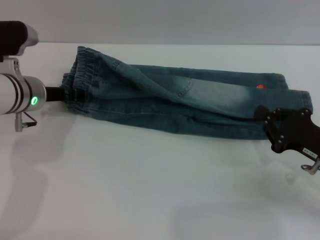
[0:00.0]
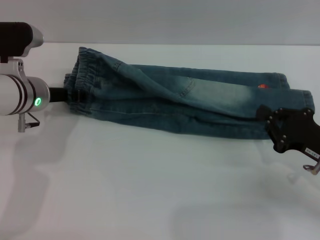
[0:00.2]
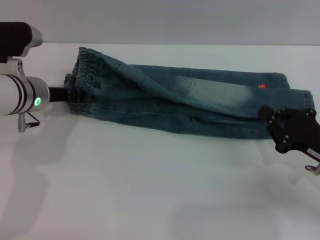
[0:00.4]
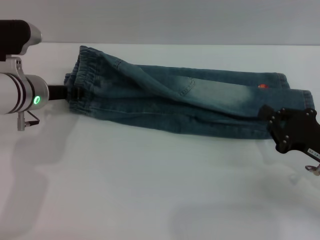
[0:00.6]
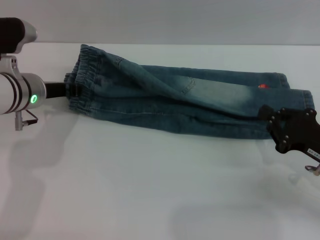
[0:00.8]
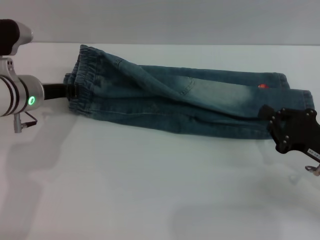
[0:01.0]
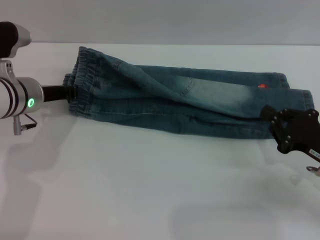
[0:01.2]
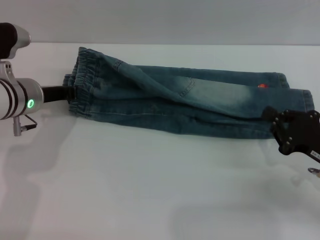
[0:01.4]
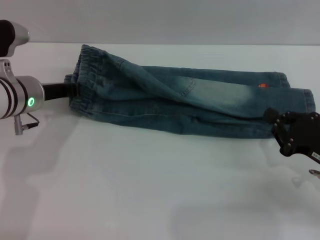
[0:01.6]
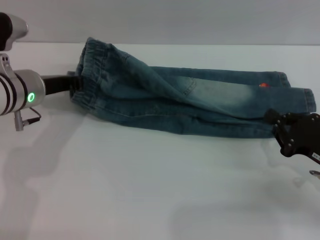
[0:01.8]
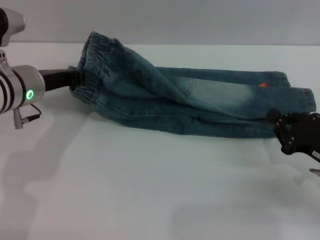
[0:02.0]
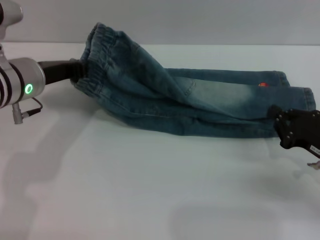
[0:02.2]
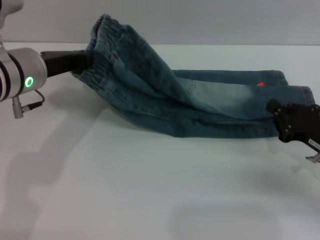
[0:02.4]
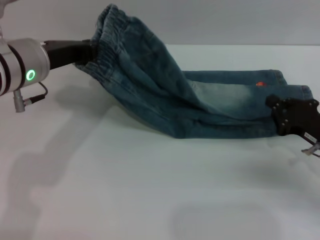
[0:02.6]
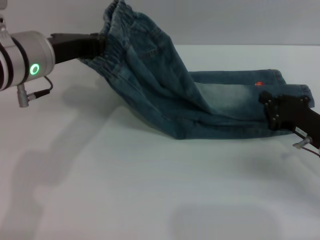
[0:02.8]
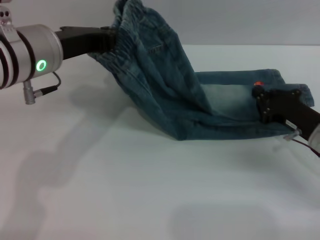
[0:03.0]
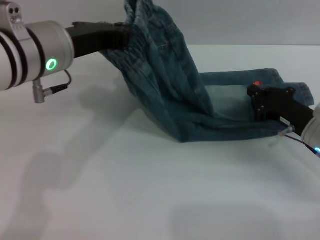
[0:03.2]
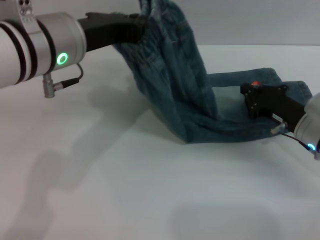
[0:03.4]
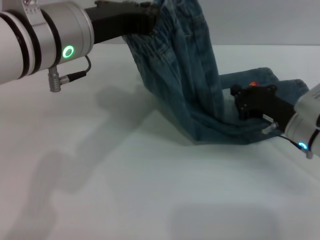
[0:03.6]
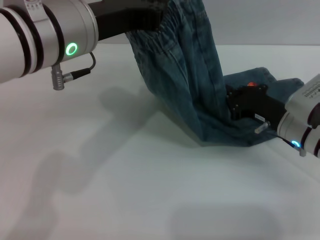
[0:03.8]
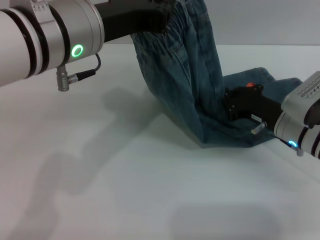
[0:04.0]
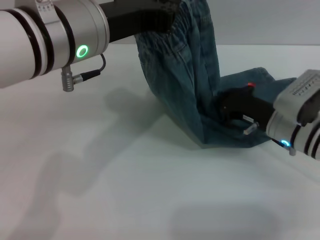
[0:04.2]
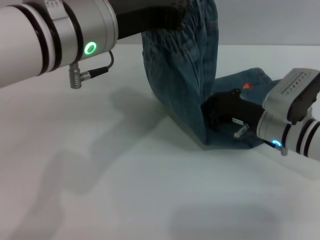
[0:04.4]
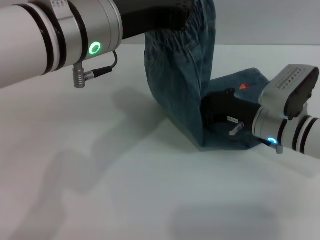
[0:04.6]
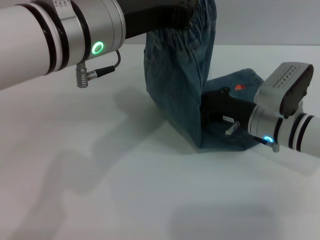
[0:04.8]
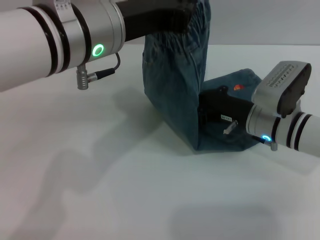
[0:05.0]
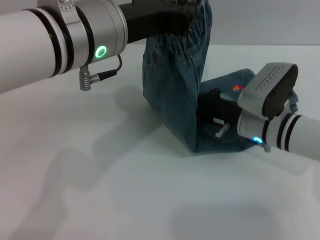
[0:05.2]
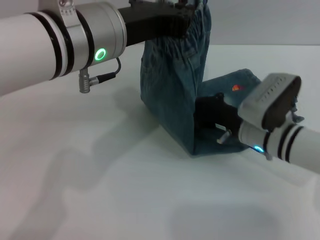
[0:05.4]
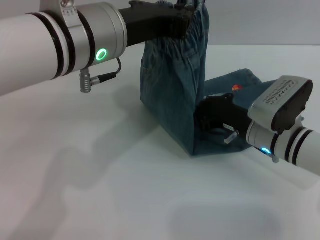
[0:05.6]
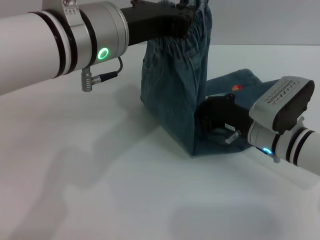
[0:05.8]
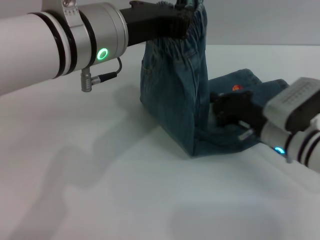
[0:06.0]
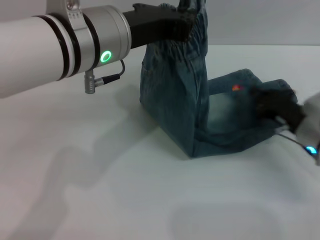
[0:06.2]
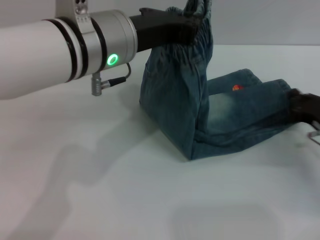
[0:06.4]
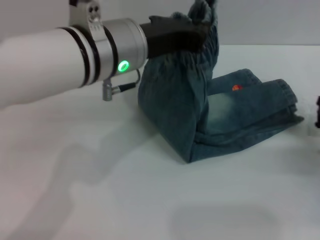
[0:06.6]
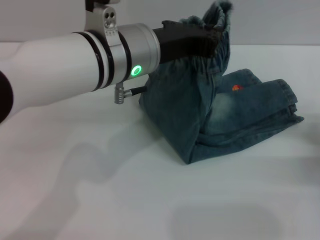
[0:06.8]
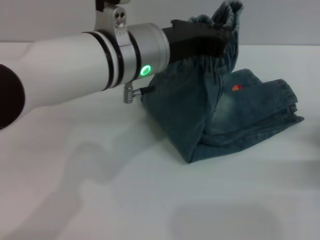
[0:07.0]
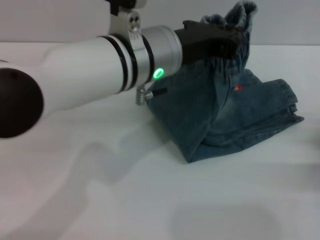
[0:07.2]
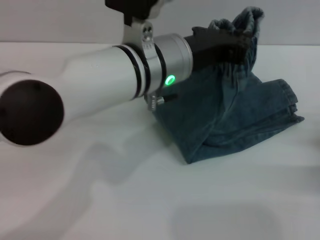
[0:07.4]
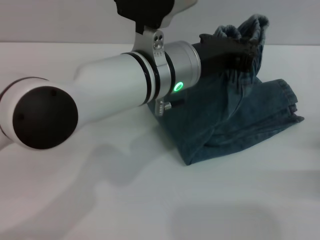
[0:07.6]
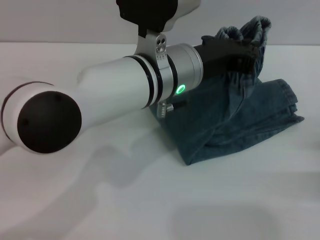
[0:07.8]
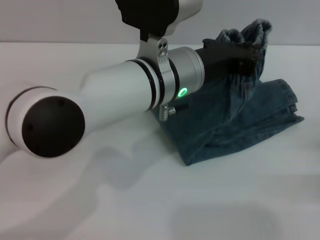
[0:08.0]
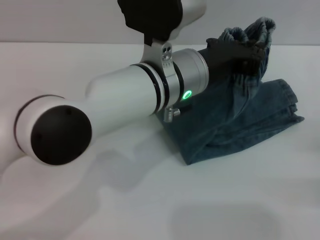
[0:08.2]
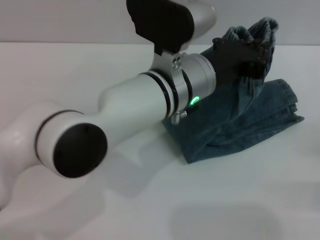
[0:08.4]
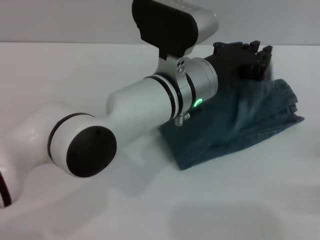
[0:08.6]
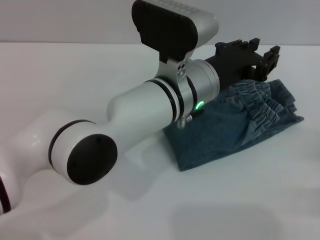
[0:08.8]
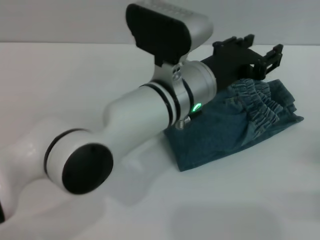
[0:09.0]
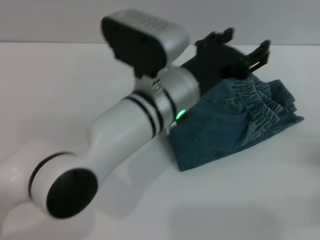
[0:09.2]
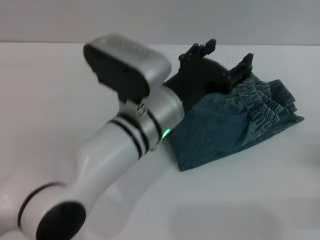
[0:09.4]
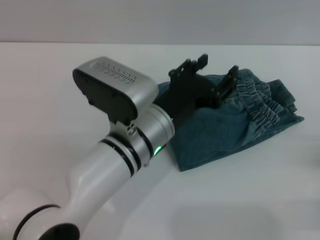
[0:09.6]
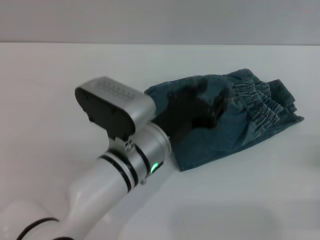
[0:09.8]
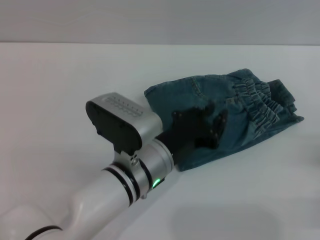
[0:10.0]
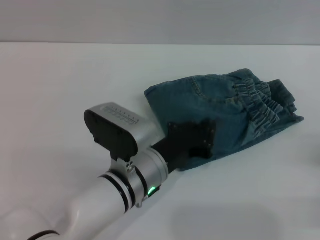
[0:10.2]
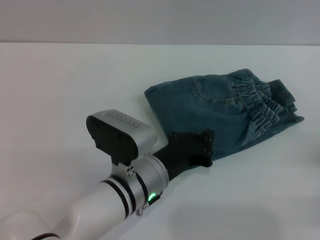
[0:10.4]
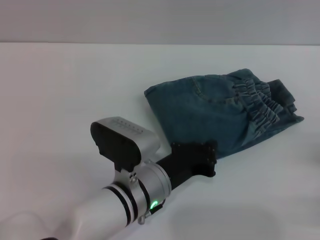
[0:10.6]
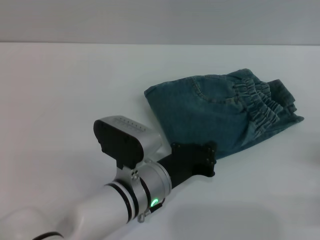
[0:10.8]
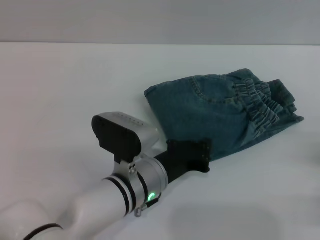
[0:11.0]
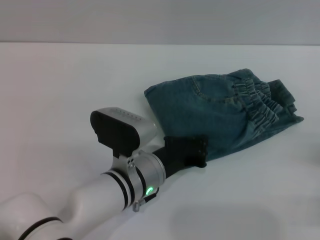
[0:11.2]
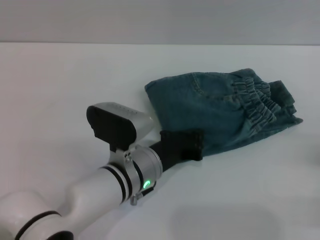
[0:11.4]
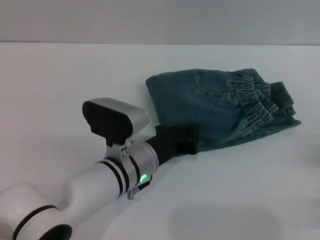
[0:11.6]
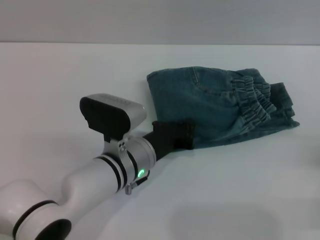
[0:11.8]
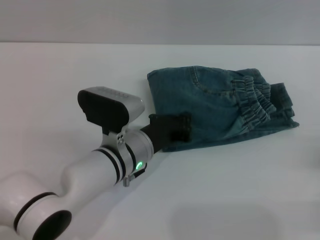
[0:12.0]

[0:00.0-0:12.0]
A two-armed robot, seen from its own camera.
Step, 0:00.0 to 0:09.2: Fold the pants from left to right with the left gripper.
0:00.0 to 0:01.6: The left gripper closes up.
0:01.6 to 0:03.0: The right gripper shifts some 5 cm forward. The left gripper heads upward and to the right, covering approximately 10 cm.
0:03.0 to 0:04.4: The left gripper shifts approximately 5 cm to the right; the right gripper is displaced to the left by roughly 5 cm.
0:04.4 to 0:06.0: The grippers make only small movements.
0:06.0 to 0:07.6: The left gripper shifts about 10 cm to the right and downward. Meanwhile the right gripper goes approximately 20 cm to the right and backward.
0:07.6 to 0:09.0: The left gripper opens its fingers.
0:09.0 to 0:10.4: The left gripper travels downward, backward and to the left by some 15 cm, and opens, then closes once more.
0:10.4 to 0:12.0: The left gripper ends up some 5 cm from where it was.

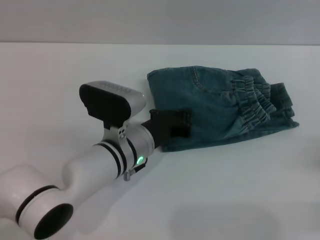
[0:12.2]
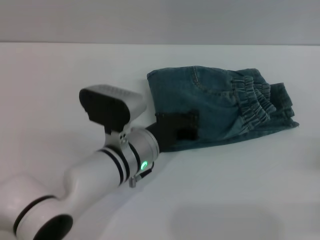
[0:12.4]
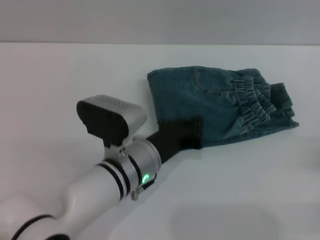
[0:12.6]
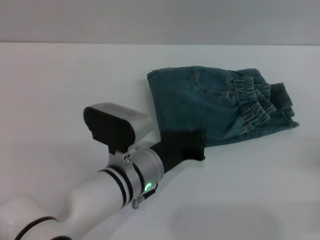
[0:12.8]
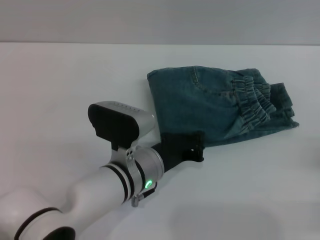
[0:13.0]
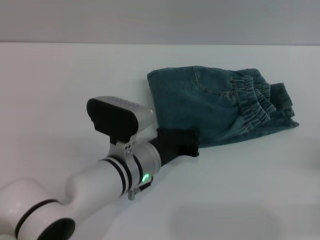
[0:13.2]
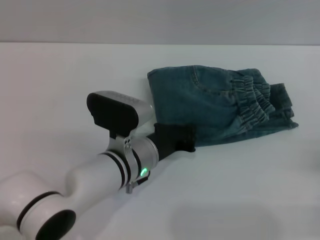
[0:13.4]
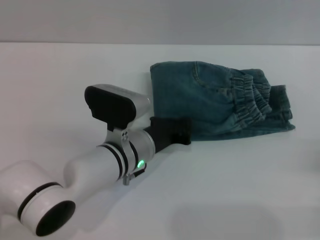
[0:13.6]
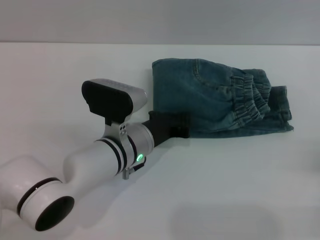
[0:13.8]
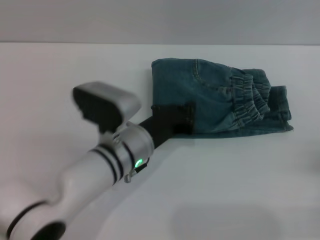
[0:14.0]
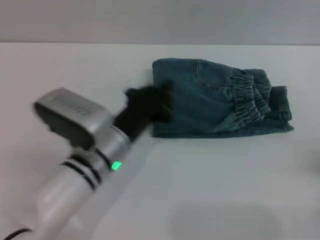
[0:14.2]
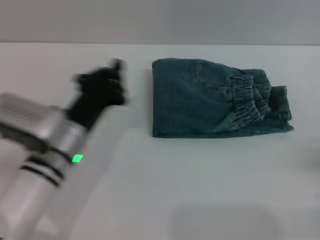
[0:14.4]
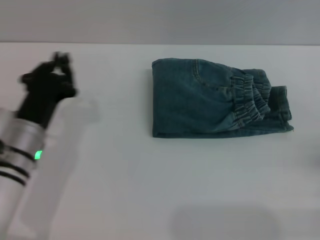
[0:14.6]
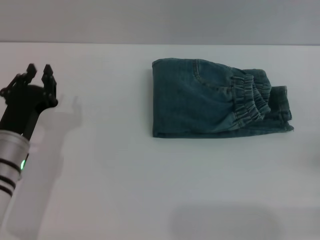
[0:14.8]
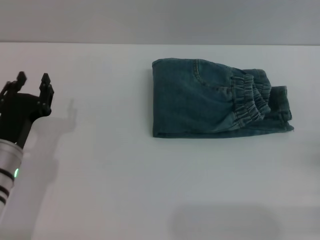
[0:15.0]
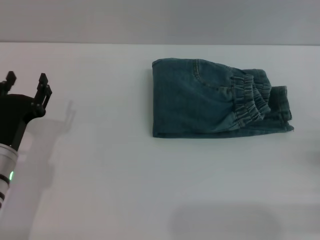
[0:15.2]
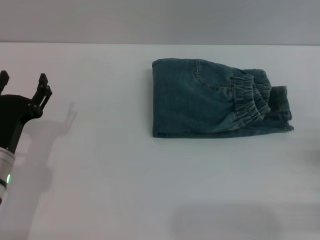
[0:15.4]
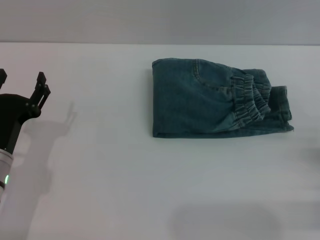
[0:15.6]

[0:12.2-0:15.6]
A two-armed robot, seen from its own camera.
Step, 0:12.2 to 0:14.2: Place the folded trousers onto the center area with the left grippers.
0:12.2 to 0:13.8: There are only small adjustments of the grippers.
0:13.8 to 0:15.6: The right gripper opens up. Meanwhile the left gripper travels to the left by approximately 15 cm, and opens.

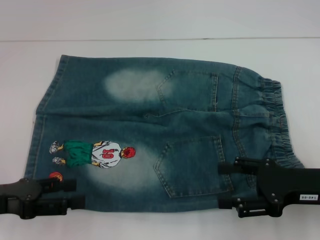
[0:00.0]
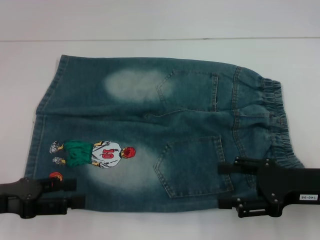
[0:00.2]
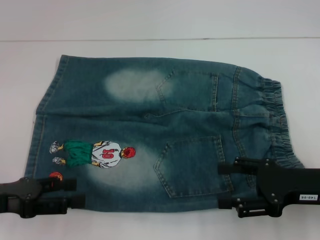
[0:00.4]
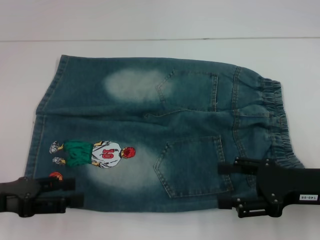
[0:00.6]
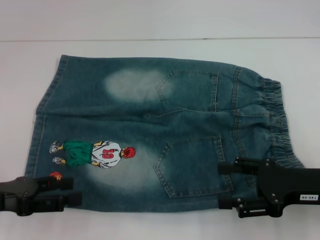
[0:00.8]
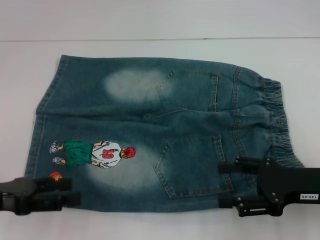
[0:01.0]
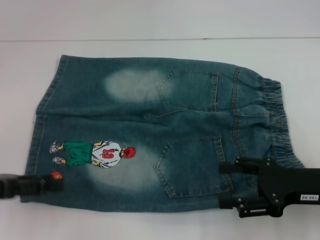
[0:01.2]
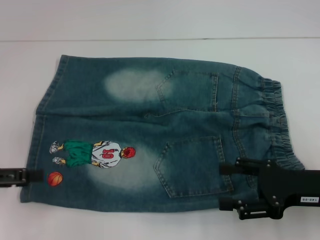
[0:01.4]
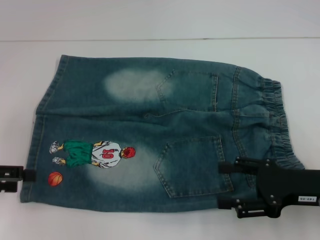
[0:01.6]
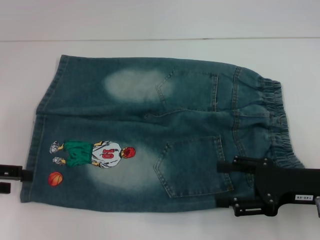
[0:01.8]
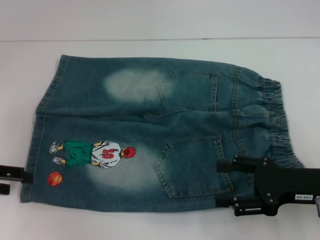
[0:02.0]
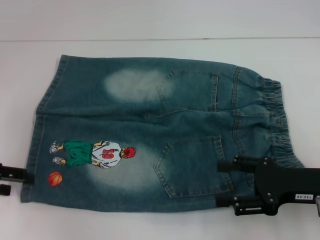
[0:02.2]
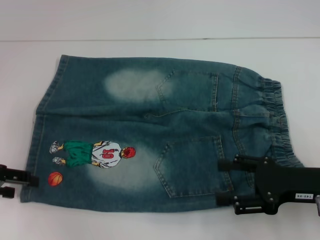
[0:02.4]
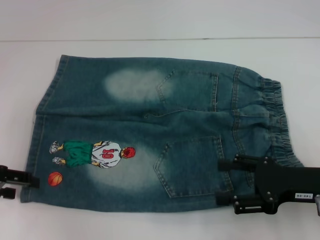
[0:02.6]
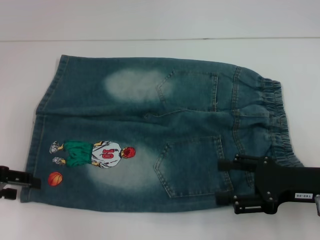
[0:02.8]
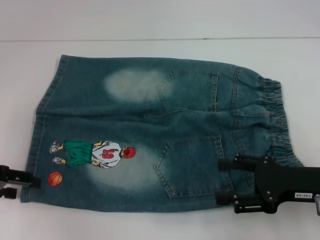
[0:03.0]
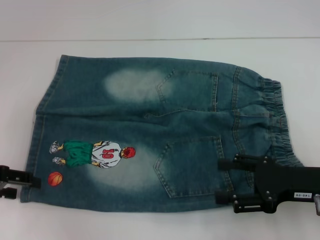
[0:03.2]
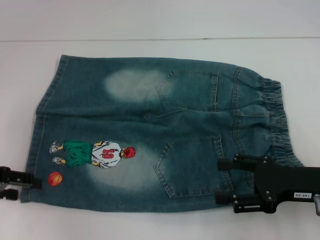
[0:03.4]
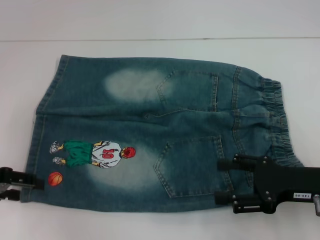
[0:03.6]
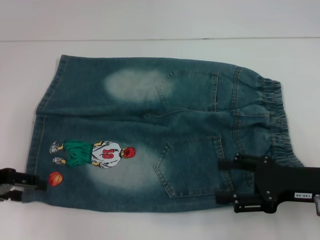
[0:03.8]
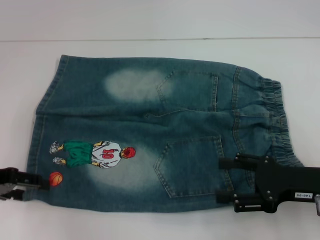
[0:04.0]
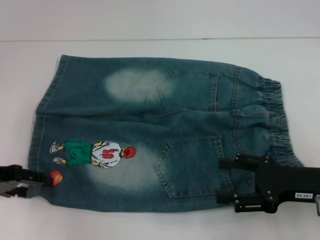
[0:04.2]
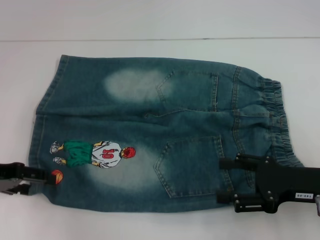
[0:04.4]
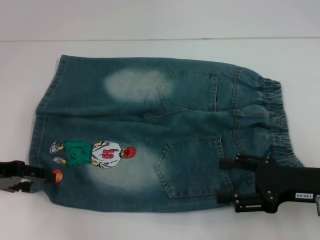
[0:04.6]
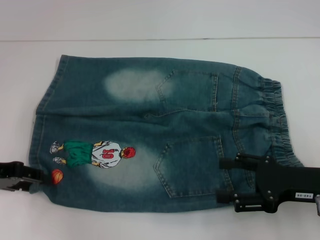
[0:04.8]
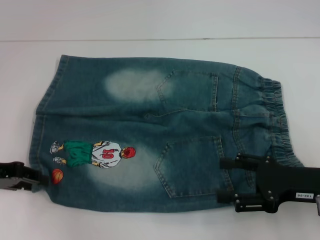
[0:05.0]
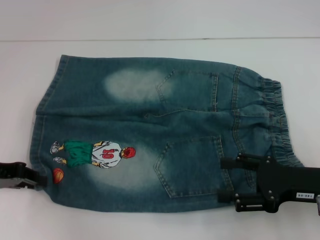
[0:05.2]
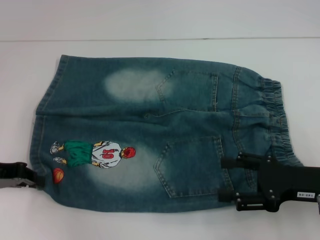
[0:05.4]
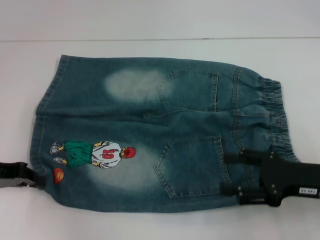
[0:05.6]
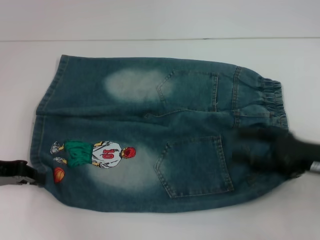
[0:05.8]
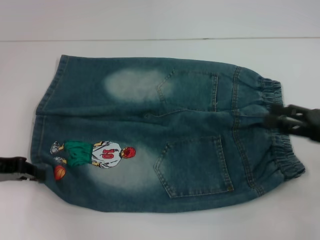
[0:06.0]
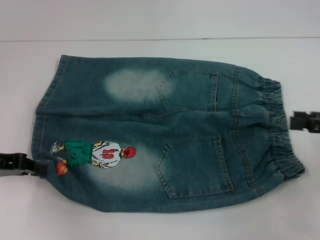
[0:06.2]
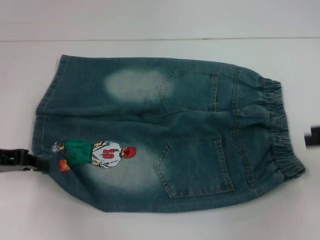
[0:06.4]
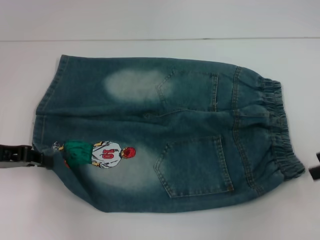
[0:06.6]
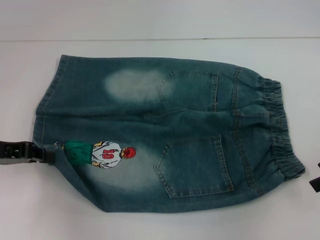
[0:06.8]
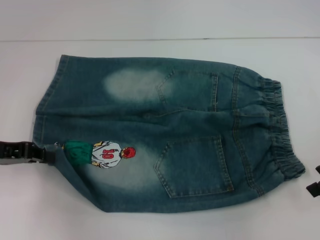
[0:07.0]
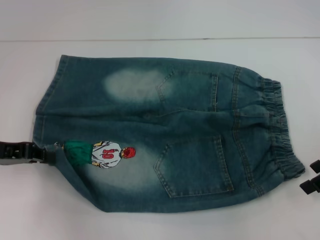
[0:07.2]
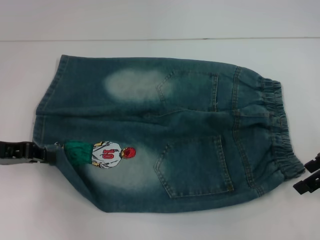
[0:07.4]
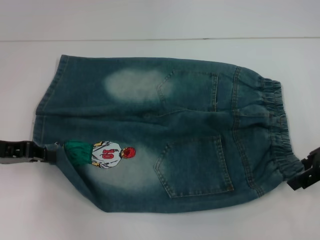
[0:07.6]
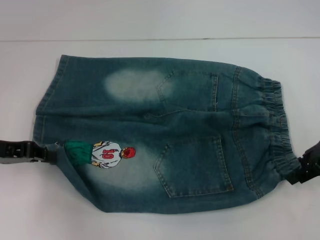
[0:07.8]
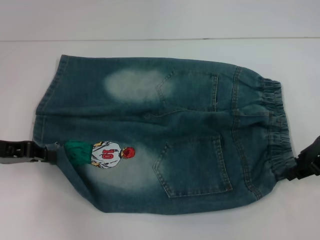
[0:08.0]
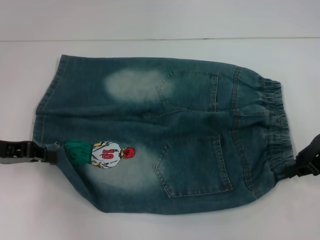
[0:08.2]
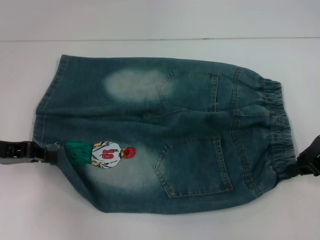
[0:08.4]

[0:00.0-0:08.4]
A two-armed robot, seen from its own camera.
Step, 0:00.0 to 0:05.6: Grab the lower left pant leg with your left hand.
0:00.0 to 0:01.4: The left gripper shifts by about 5 cm.
0:02.8 to 0:04.2: The grippers make only small movements.
0:04.2 to 0:05.6: The left gripper closes its fingers.
0:05.6 to 0:07.0: The right gripper is displaced upward, forward and to the right by about 15 cm.
0:07.0 to 0:08.4: The right gripper moves about 5 cm, and closes.
